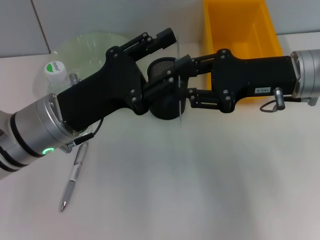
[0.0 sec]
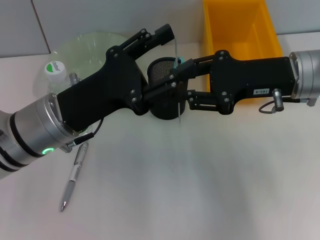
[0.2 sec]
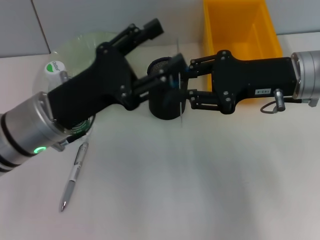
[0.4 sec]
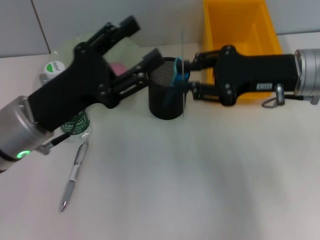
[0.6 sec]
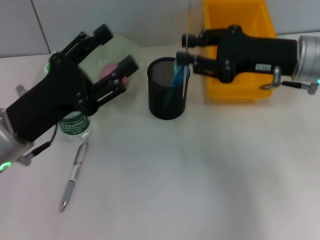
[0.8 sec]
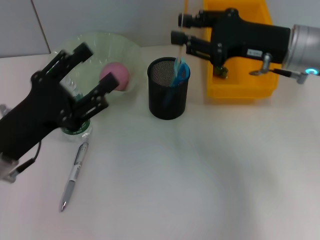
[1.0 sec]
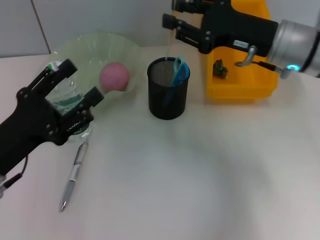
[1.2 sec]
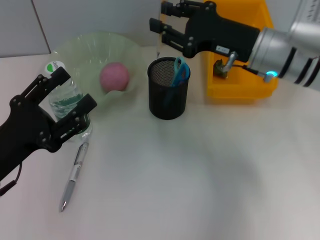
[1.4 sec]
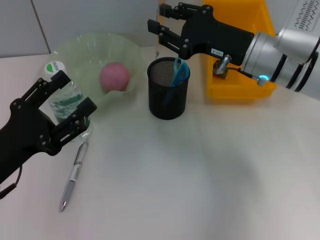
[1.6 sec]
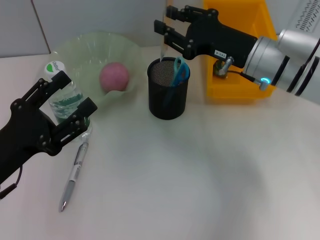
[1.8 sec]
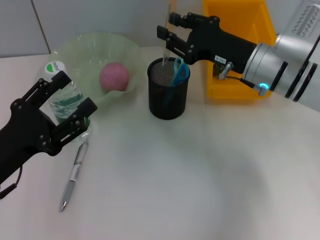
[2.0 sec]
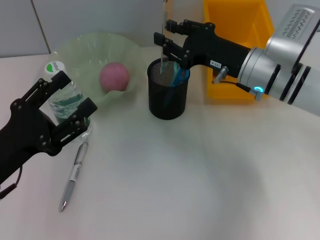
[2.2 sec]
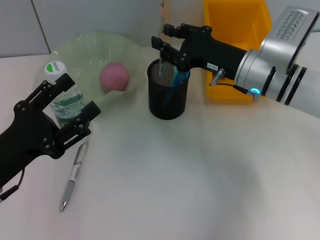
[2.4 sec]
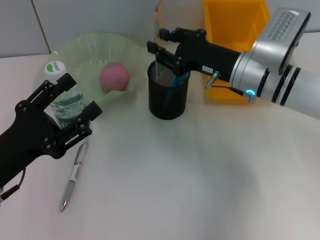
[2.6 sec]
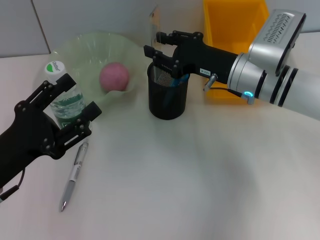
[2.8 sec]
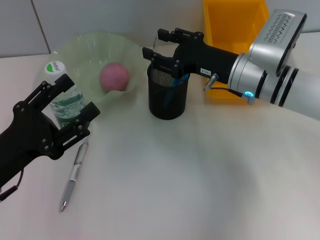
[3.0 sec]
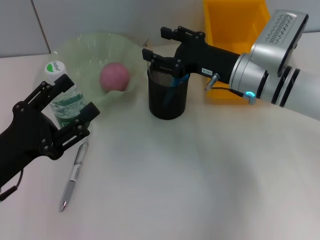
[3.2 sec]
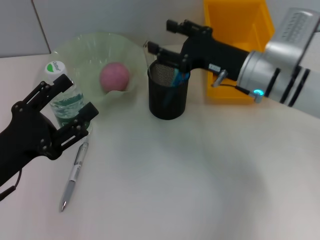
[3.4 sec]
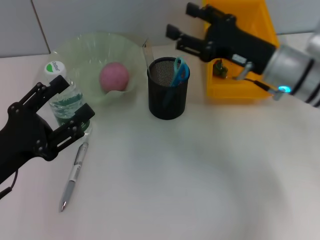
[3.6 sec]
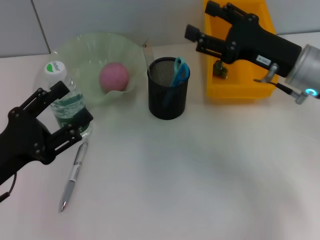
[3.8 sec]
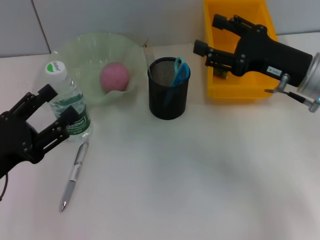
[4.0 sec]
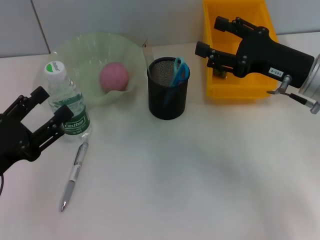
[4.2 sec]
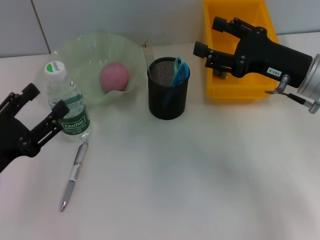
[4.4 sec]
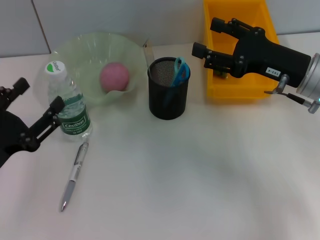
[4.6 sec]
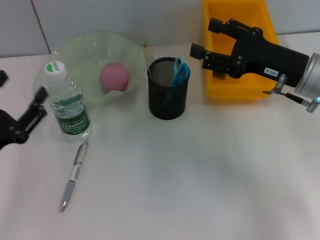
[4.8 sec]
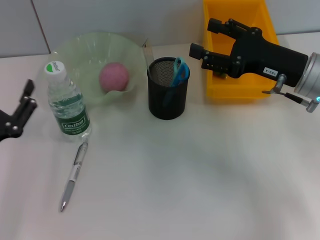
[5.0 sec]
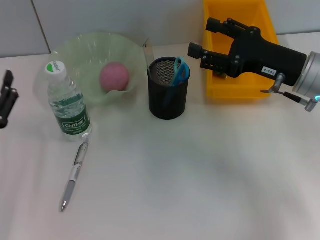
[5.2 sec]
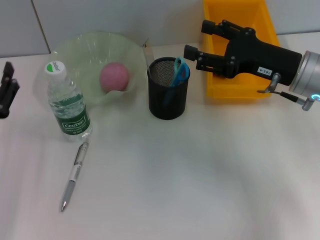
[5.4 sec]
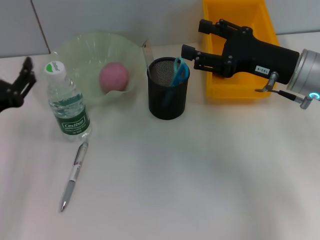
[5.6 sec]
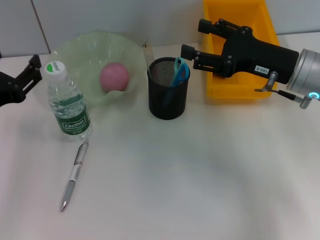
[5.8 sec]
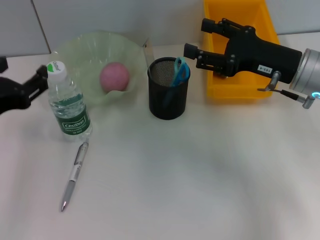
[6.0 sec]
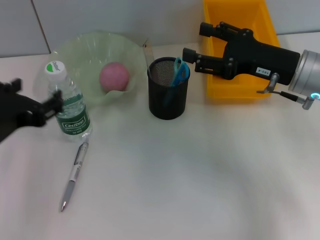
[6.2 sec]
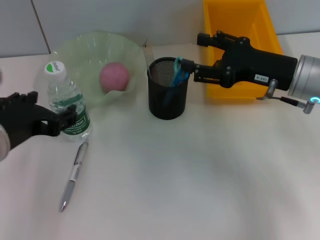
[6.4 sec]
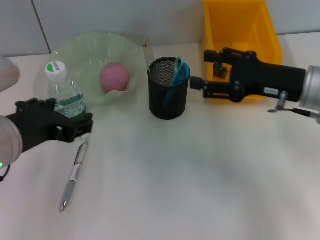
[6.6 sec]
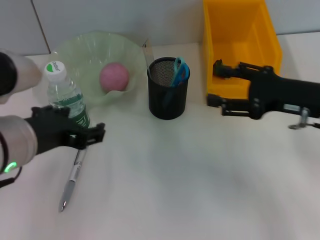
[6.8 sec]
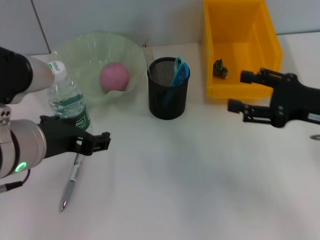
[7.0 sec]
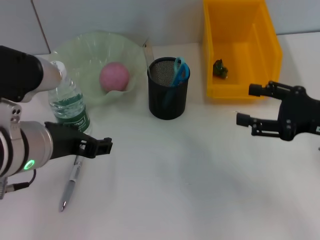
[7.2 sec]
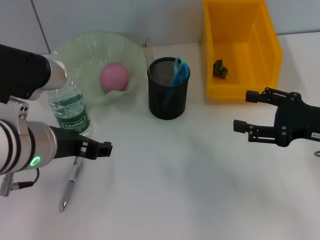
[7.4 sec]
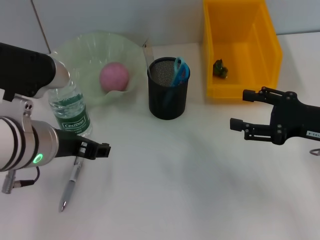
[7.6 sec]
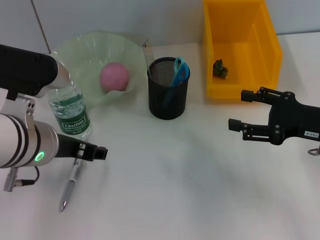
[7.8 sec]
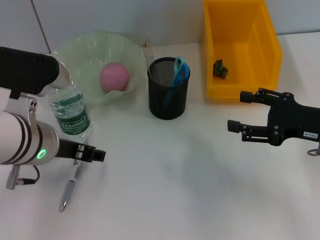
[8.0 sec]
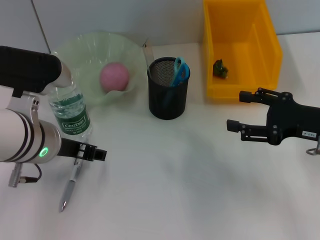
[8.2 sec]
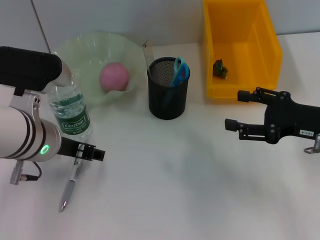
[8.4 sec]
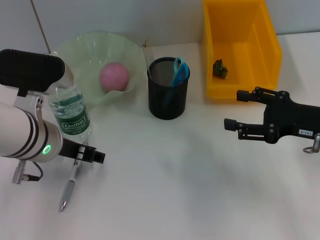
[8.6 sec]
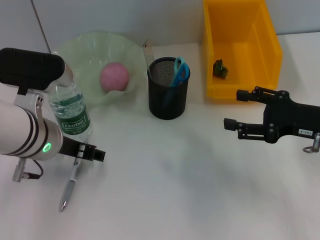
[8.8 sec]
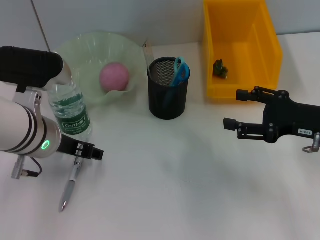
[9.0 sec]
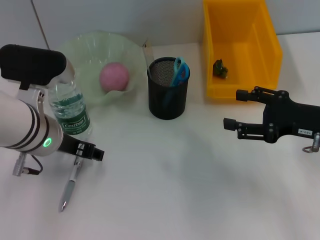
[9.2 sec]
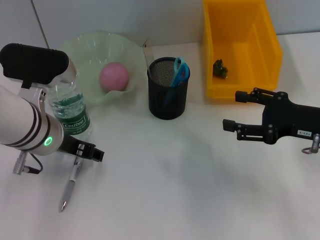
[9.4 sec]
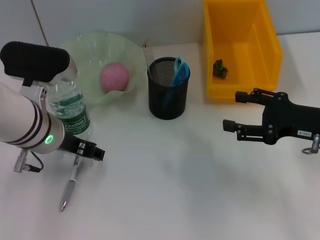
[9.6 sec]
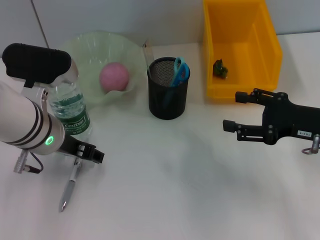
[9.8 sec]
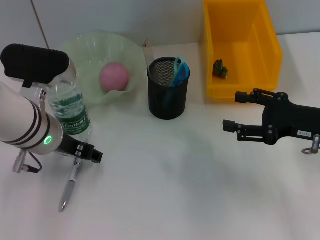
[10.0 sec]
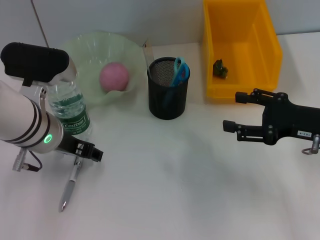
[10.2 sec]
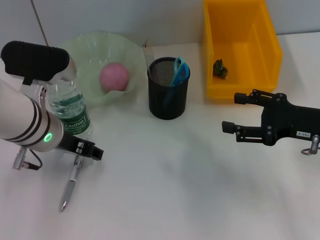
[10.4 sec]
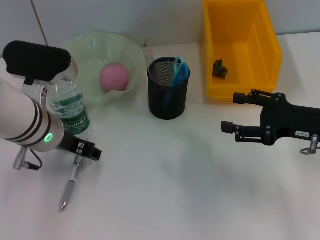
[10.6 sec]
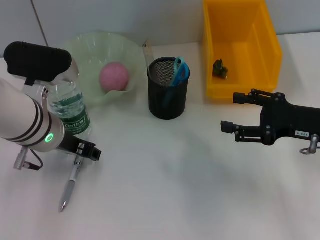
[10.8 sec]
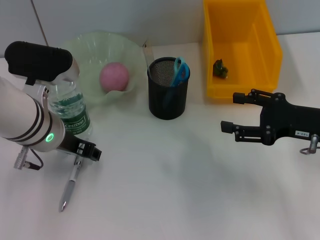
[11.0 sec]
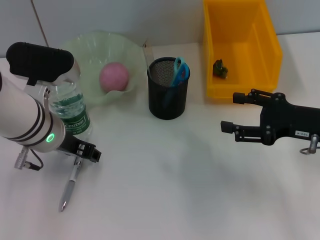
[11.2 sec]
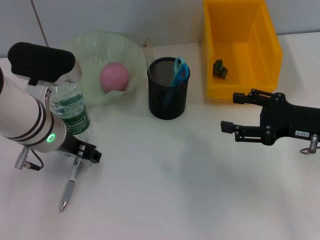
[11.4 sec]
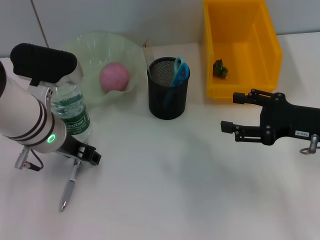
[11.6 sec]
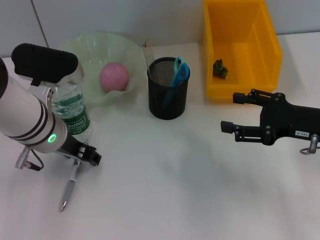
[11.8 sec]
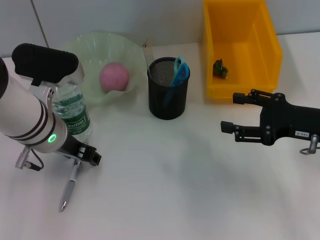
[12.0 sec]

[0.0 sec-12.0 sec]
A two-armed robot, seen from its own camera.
Step, 0.8 sec to 3.6 sec: Place the ruler into the pen holder with the right hand.
0.0 sec to 1.6 sec: The right gripper shifts by some 5 cm. The left gripper heads to the left and backward, covering some 10 cm, and opens up.
1.6 sec to 3.0 sec: There are only small adjustments of the grippers.
3.0 sec to 4.4 sec: The right gripper heads to the right, covering some 10 cm, and opens its fingers.
4.4 sec to 6.0 sec: The left gripper moves upward, some 10 cm.
6.0 sec to 7.6 sec: The left gripper heads to the right, covering some 10 cm; the right gripper is displaced backward and to the right by approximately 10 cm.
7.6 sec to 10.4 sec: The grippers move only a little.
10.4 sec to 12.0 sec: Both grippers stay about where they are.

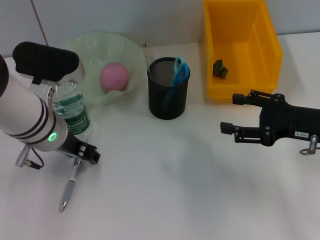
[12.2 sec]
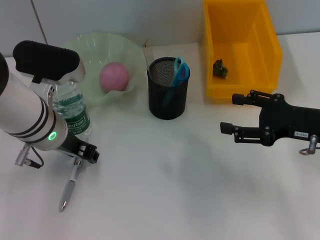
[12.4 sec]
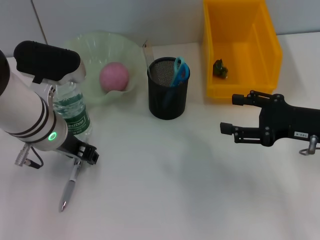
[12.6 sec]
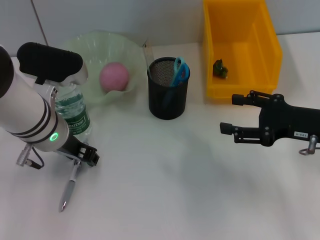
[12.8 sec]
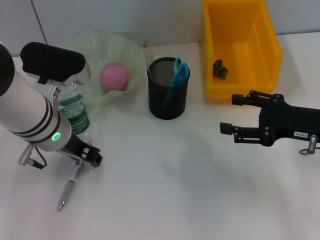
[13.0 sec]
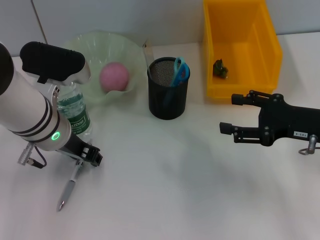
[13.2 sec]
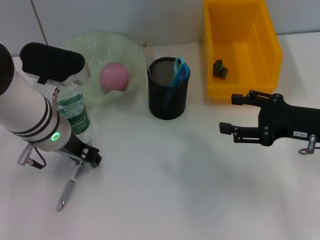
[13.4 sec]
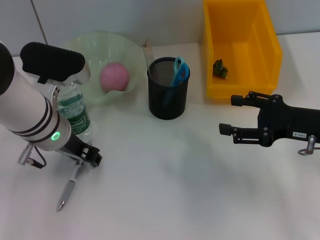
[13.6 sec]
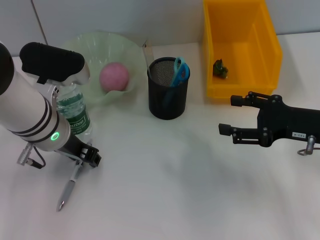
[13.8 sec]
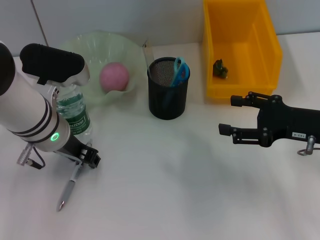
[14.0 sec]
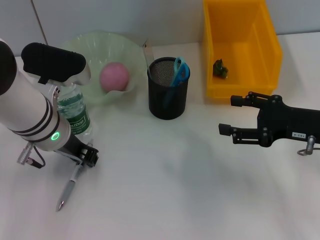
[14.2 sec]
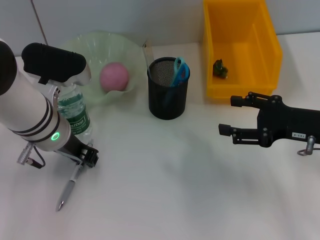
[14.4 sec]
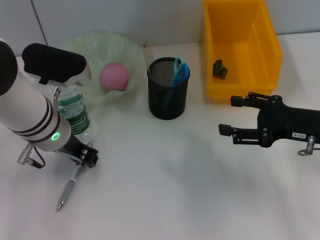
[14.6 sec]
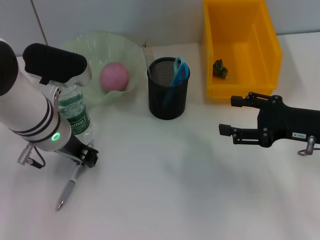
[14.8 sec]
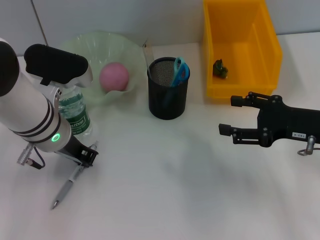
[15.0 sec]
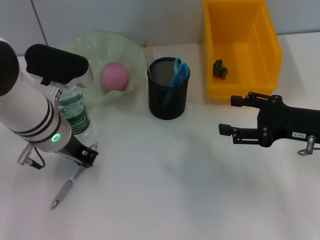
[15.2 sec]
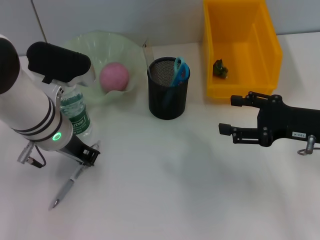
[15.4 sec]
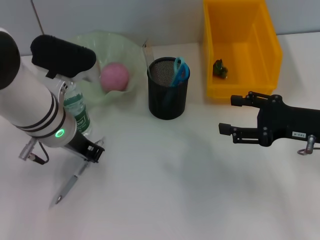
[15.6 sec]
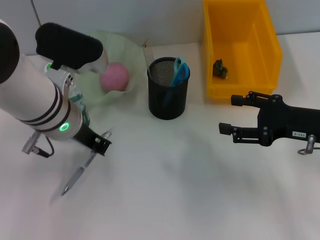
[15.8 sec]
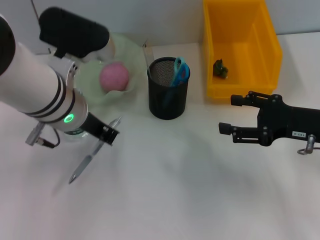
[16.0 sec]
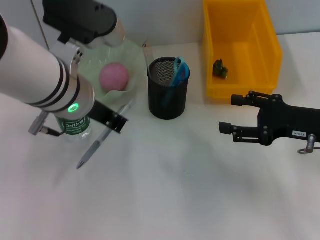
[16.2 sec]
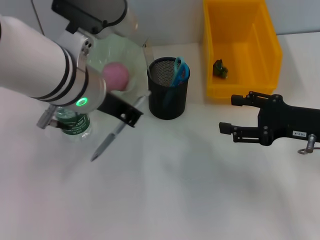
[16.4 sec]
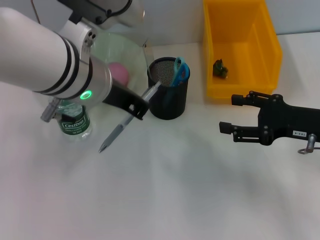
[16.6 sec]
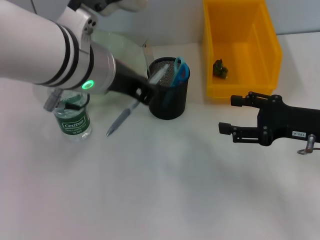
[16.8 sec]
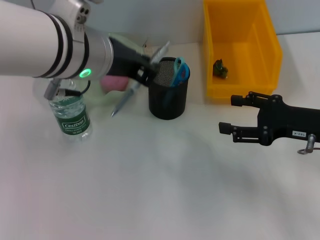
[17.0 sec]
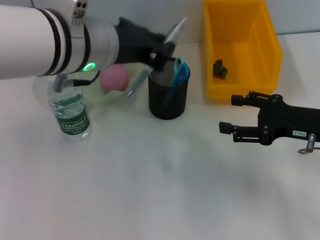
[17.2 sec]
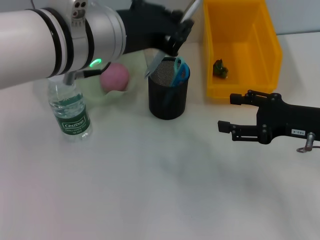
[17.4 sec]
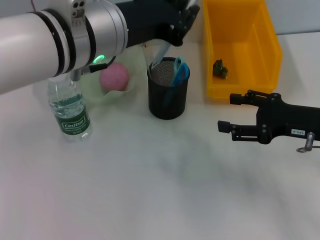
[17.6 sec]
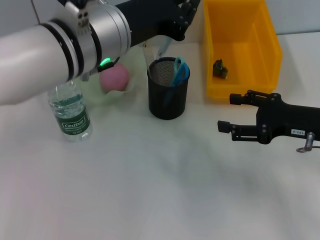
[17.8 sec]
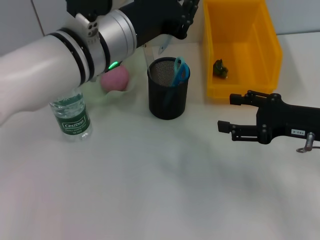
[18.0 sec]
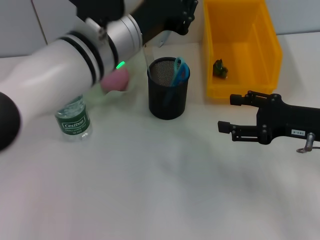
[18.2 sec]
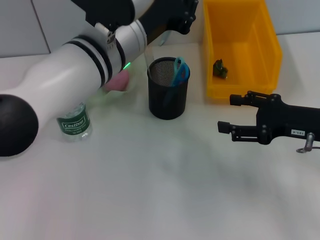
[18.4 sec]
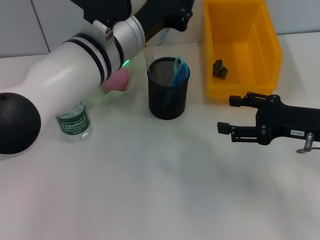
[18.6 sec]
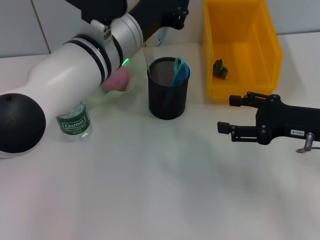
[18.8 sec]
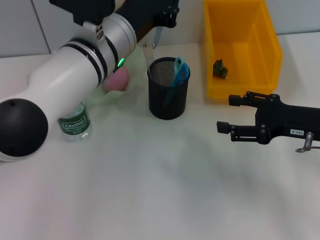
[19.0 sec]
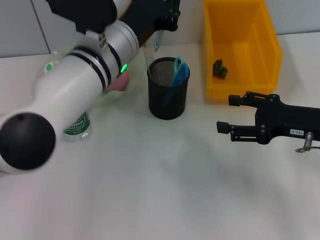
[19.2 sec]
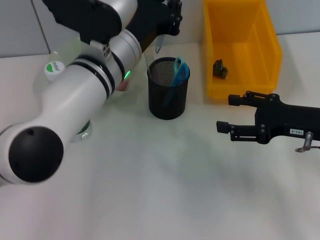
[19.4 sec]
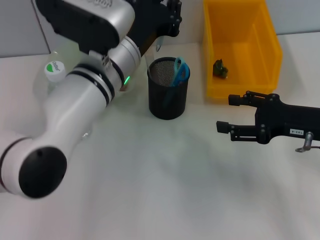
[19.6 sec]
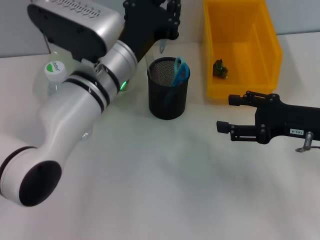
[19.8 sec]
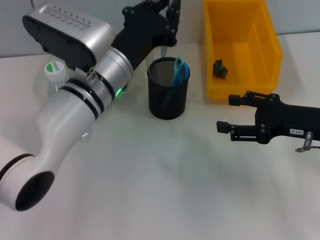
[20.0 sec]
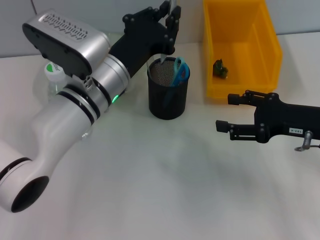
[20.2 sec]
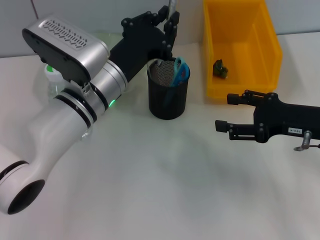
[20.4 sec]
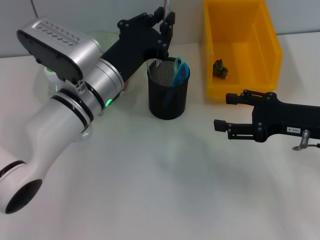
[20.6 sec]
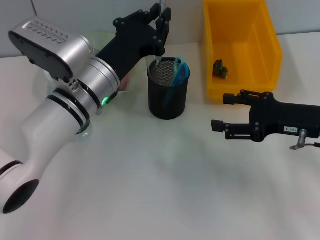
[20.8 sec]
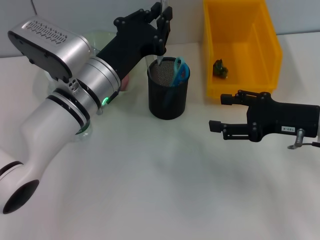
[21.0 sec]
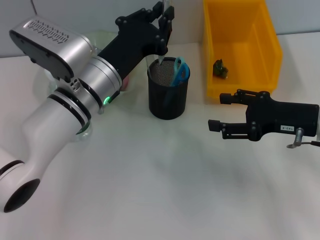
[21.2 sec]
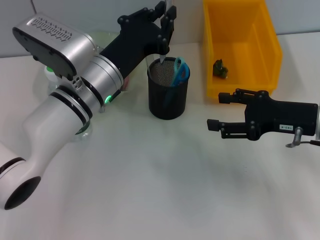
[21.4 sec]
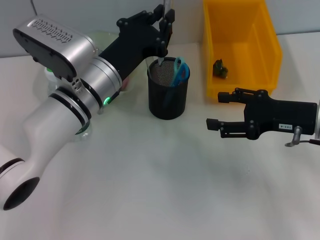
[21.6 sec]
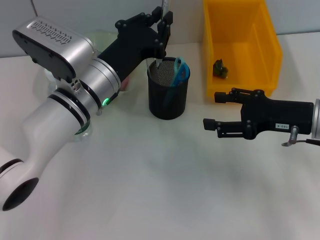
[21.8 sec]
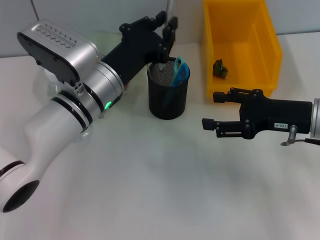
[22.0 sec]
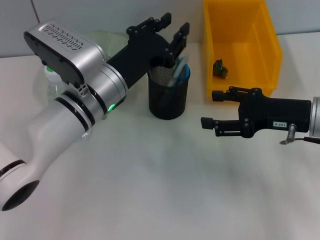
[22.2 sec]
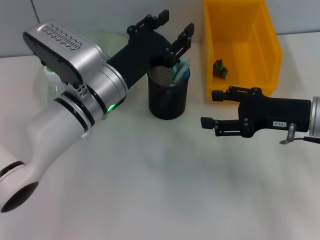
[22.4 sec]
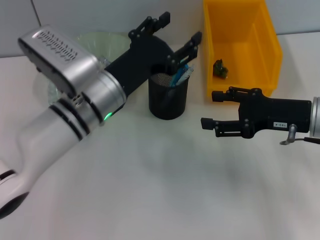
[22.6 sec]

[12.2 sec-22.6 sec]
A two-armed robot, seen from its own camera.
Step, 12.2 sec to 15.4 sec: Grab the gray spring-action pen with the left hand.
12.2 sec to 13.6 sec: Both grippers stay put.
13.6 sec to 15.2 sec: The left gripper closes.
15.2 sec to 16.6 sec: The left gripper heads upward and to the right, covering roughly 10 cm.
19.6 sec to 21.2 sec: The left gripper changes place by some 5 cm.
21.2 sec to 22.6 sec: The left gripper opens up.
